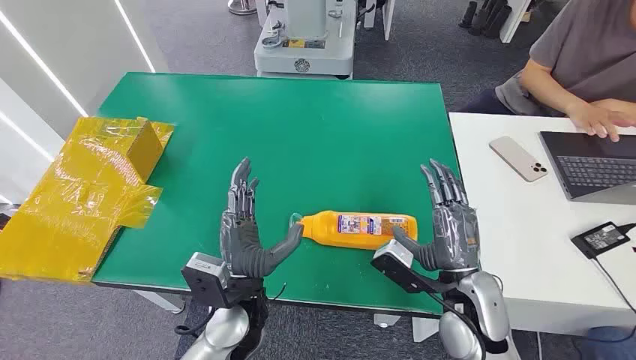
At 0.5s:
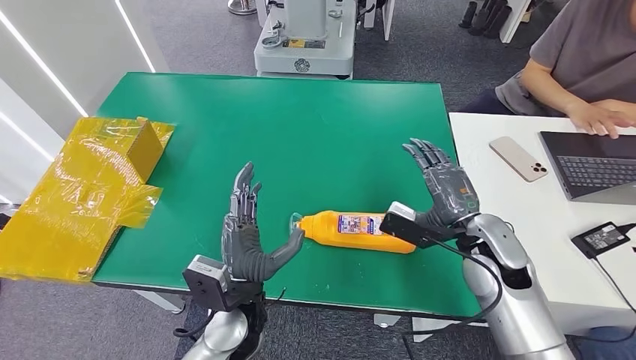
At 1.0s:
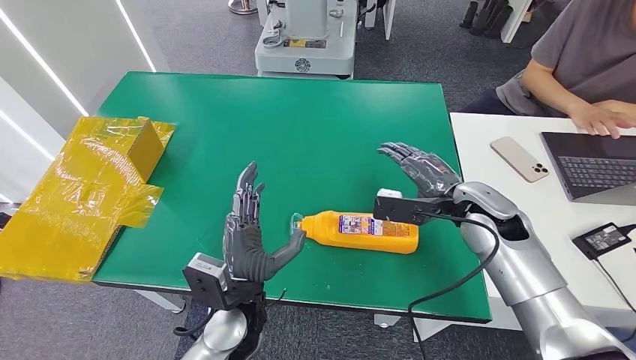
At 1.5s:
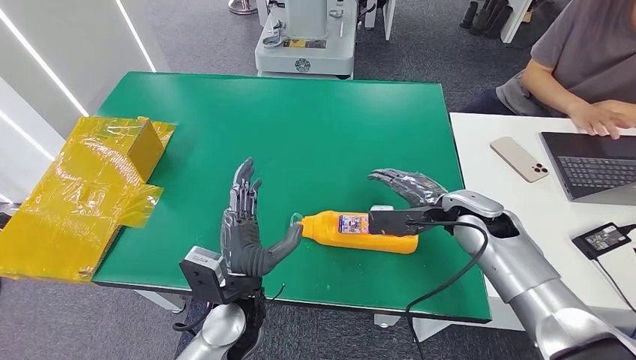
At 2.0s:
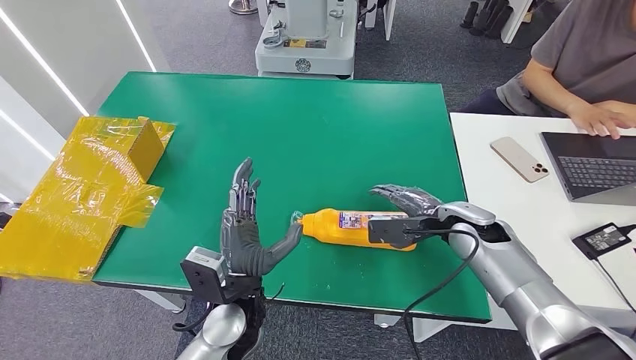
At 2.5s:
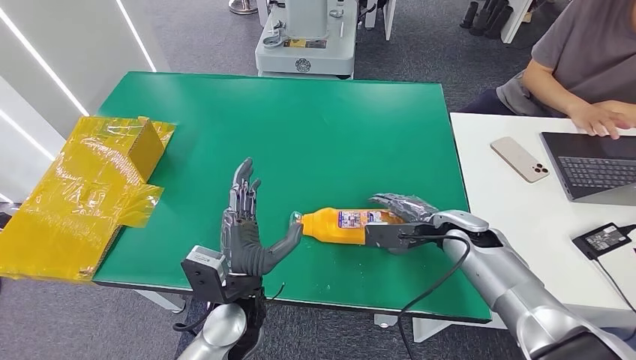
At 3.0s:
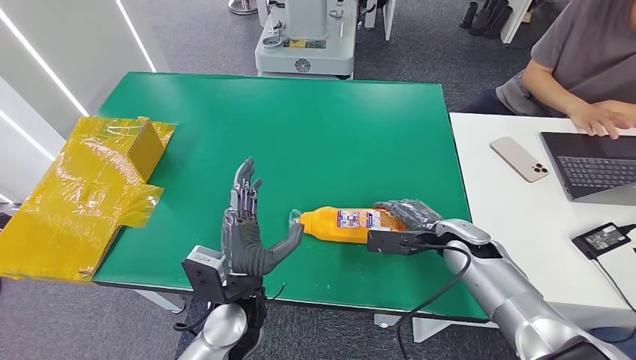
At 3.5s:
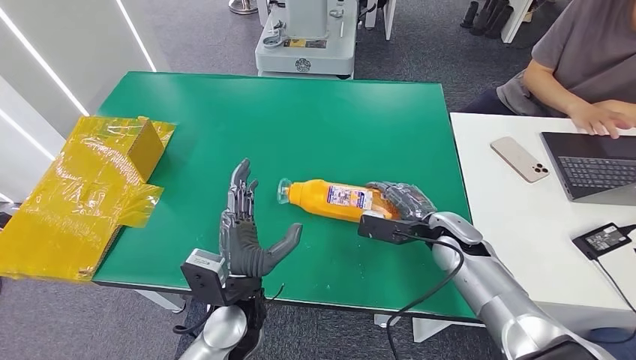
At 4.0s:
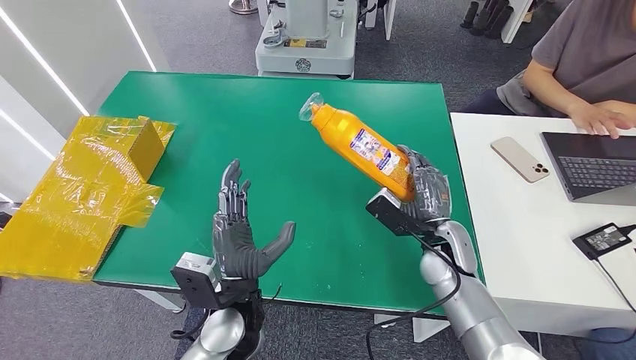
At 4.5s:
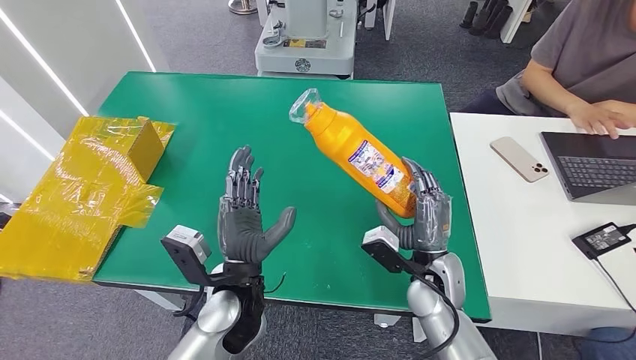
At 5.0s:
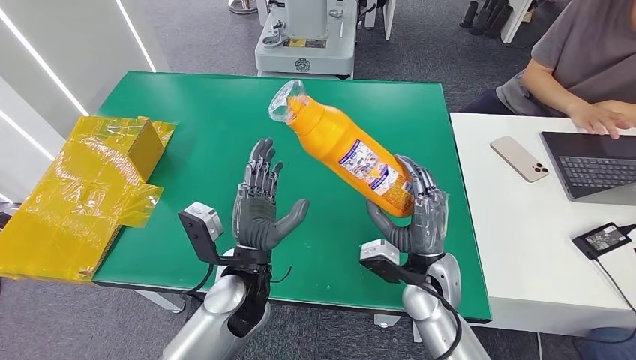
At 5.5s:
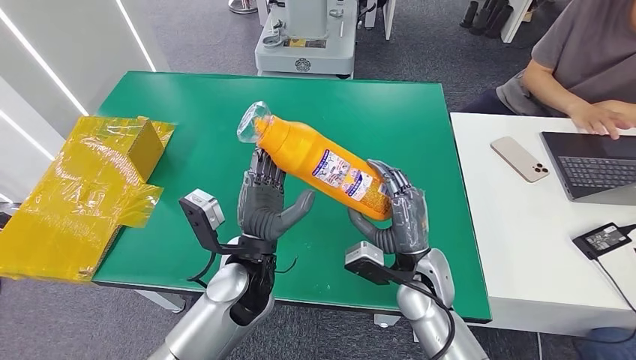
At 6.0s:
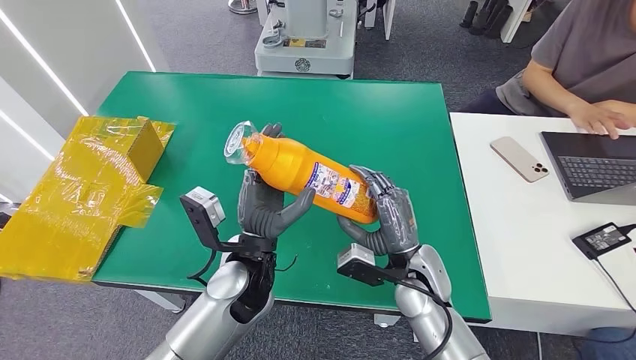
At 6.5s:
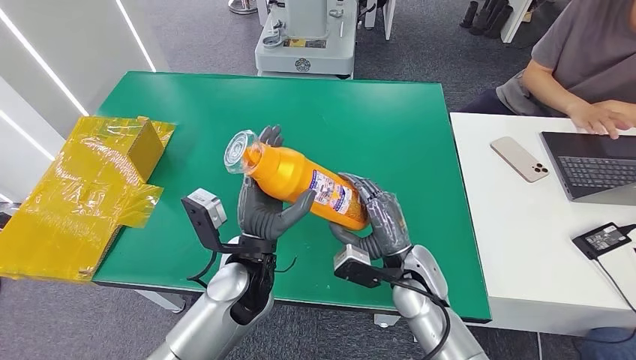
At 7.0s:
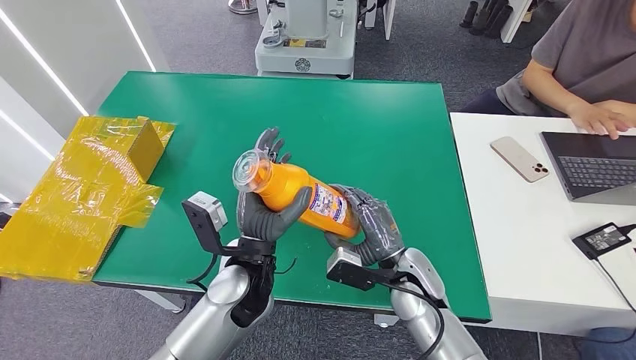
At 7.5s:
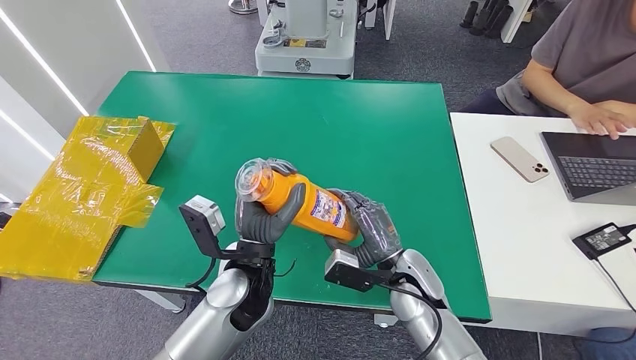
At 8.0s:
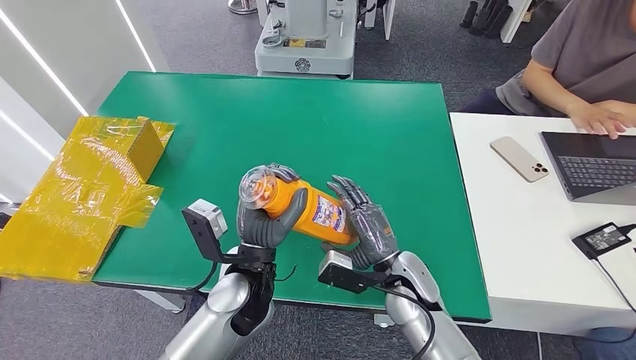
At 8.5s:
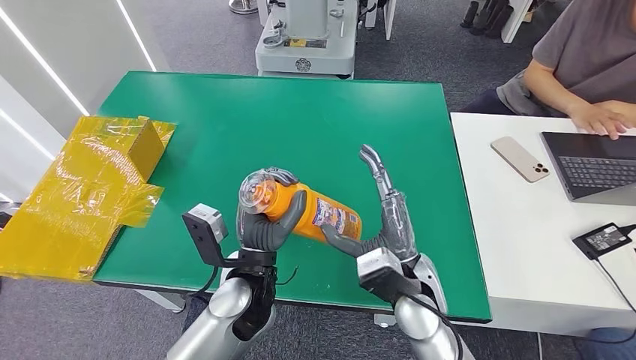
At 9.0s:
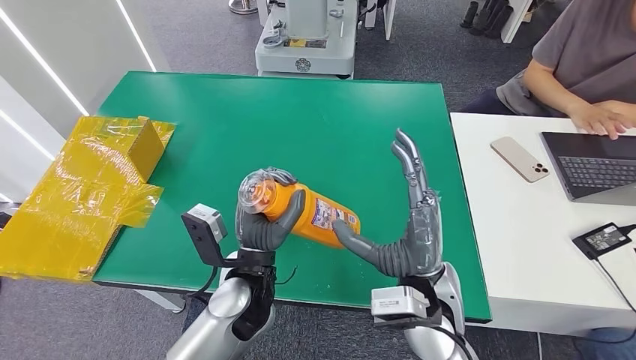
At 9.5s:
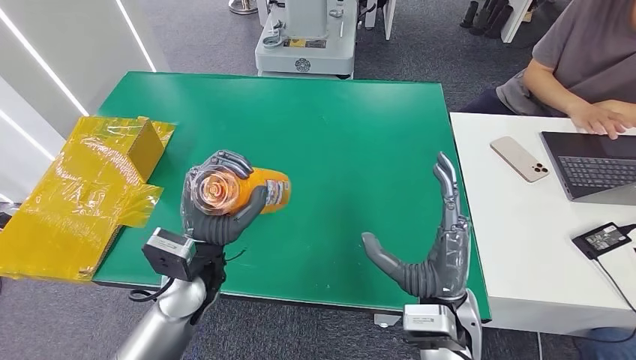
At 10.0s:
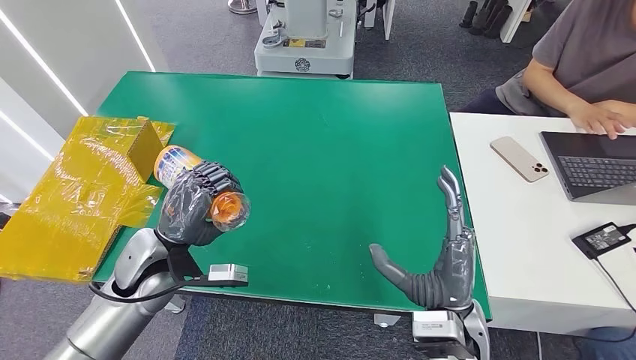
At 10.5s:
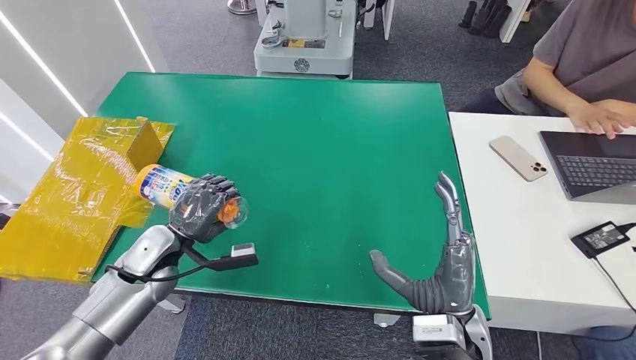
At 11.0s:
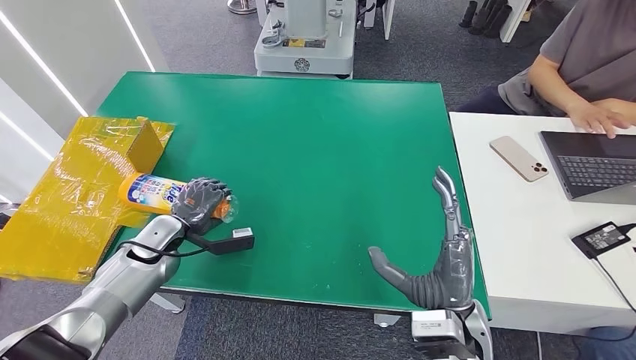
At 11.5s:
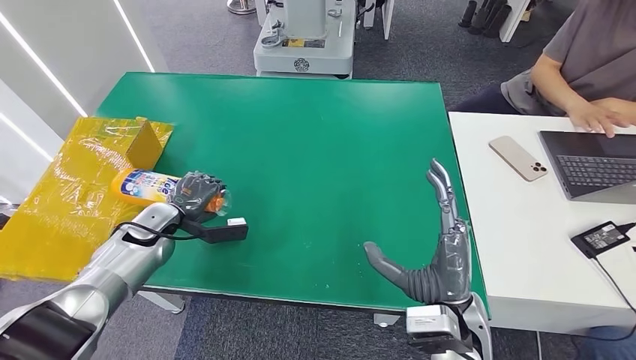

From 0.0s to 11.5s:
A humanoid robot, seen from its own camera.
Step, from 0.0s to 5.5s: Pick up the bottle from the table.
From 2.0s to 4.0s: The right hand shifts some 5 cm to the left.
From 4.0s to 6.0s: The left hand moves forward, roughly 5 cm. Meanwhile the right hand is displaced to the left and backward by approximately 10 cm.
From 6.0s to 7.5s: The hands stay close to where they were, moving slightly.
From 7.5s to 9.5s: The right hand shifts approximately 10 cm upward and backward. Meanwhile the left hand is displaced to the left by about 10 cm.
From 9.5s to 11.5s: The left hand is displaced to the left, forward and downward by roughly 20 cm.

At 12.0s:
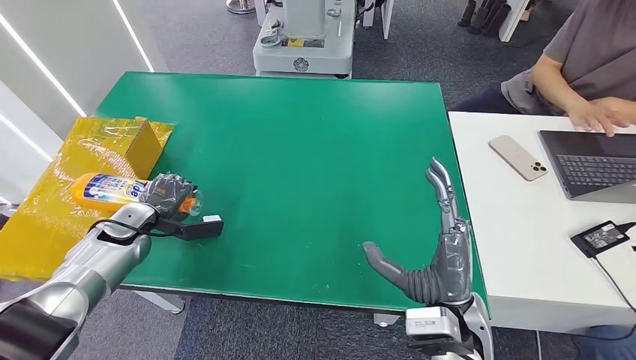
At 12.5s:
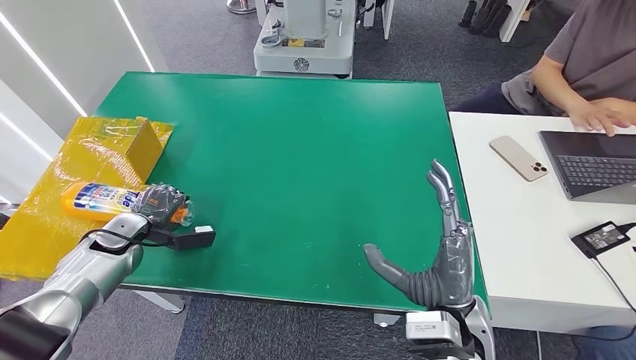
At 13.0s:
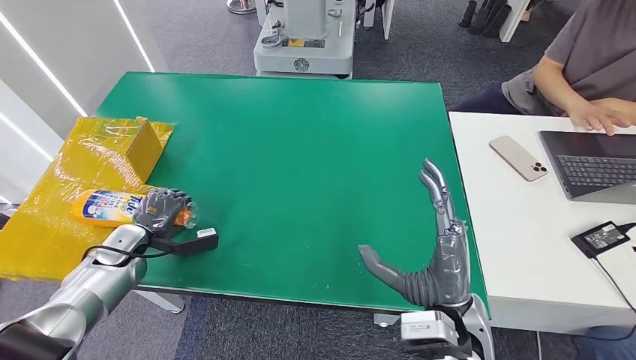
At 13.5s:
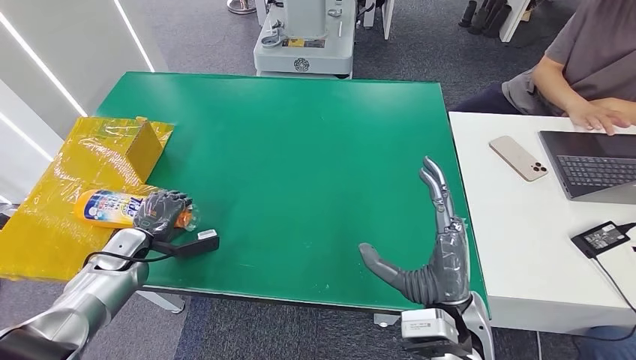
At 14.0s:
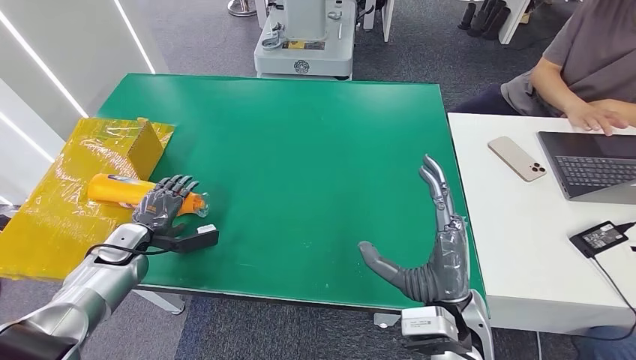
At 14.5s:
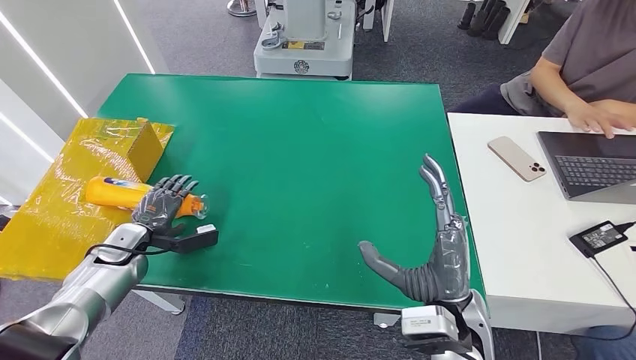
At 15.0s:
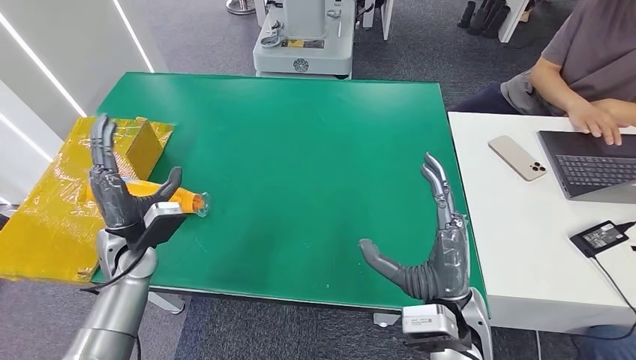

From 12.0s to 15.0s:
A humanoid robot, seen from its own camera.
Step, from 12.0s to 15.0s: Turn the bottle to the front side.
From 12.0s to 13.5s: The left hand moves some 5 cm.
From 13.5s to 15.0s: The left hand moves to the right and upward, roughly 10 cm.

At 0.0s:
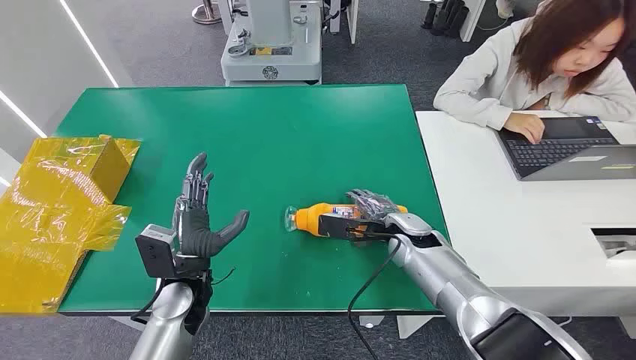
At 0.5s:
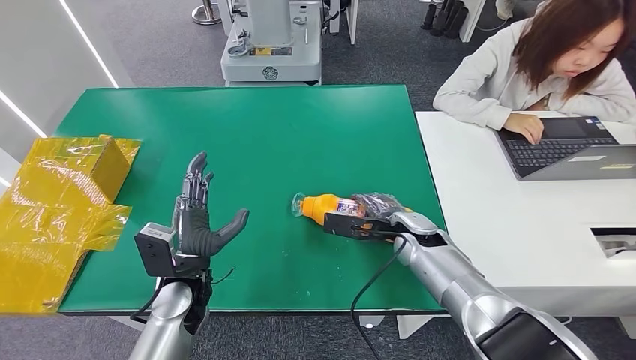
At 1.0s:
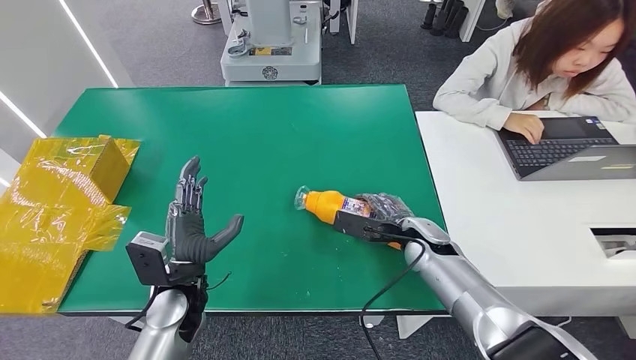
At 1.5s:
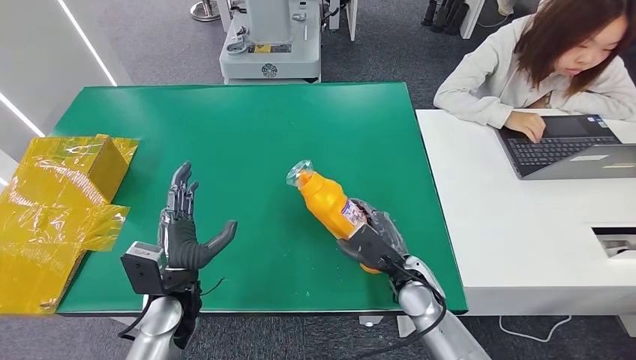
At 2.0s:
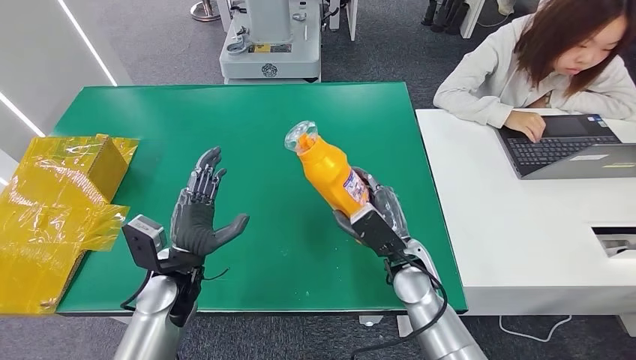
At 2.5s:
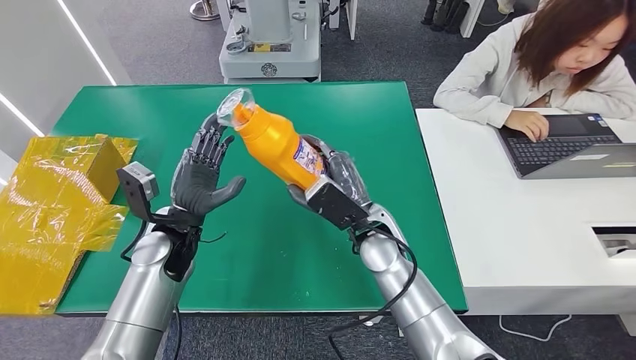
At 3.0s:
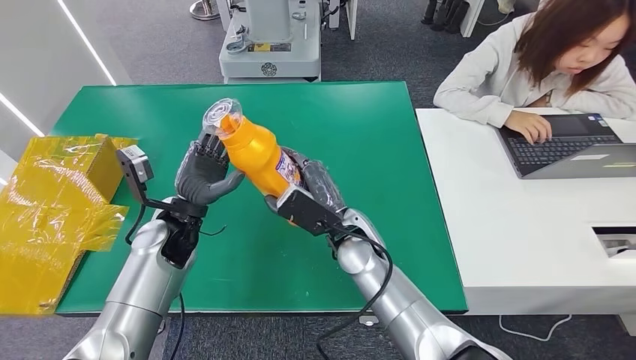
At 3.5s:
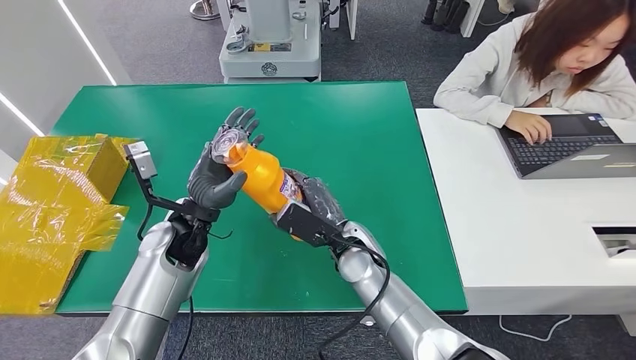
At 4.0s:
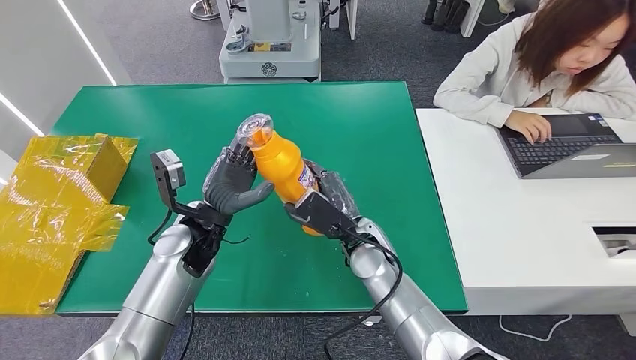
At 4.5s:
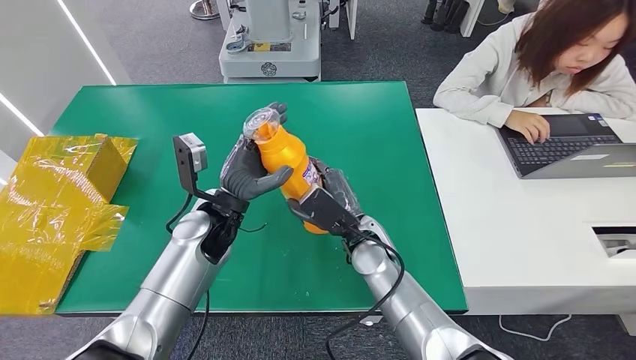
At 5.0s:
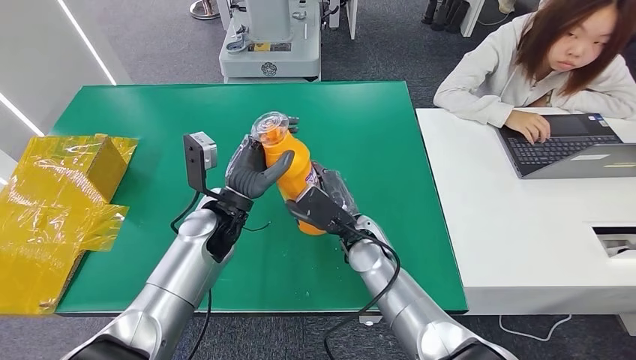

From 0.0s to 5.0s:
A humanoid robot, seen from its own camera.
Step, from 0.0s to 1.5s: Pick up the bottle from the table.
From 2.5s to 5.0s: The left hand moves to the right, some 5 cm.
